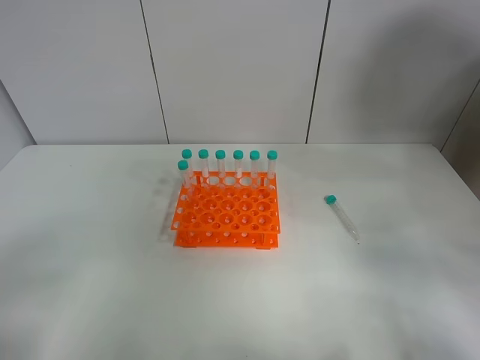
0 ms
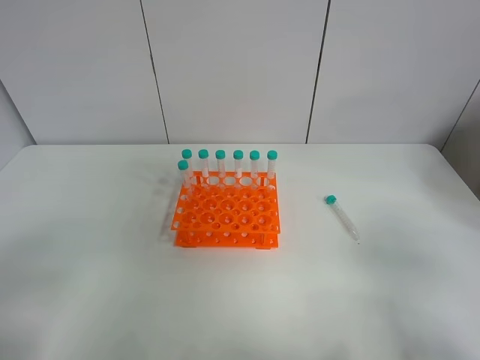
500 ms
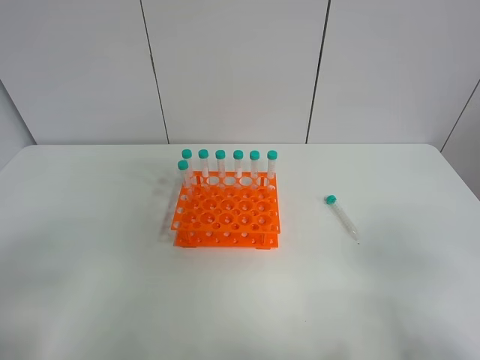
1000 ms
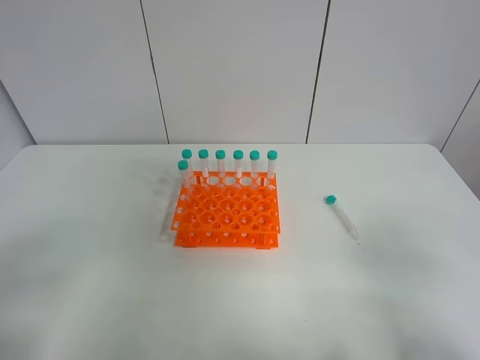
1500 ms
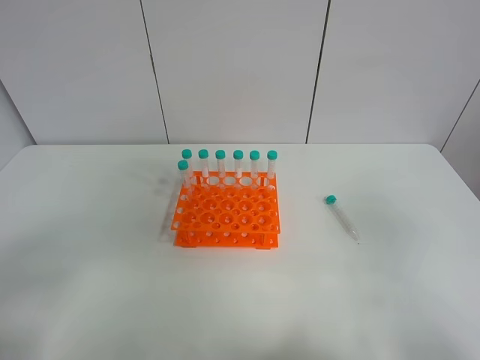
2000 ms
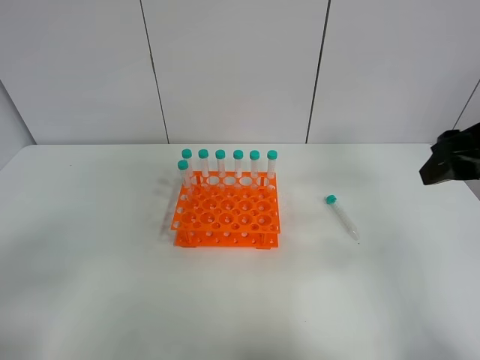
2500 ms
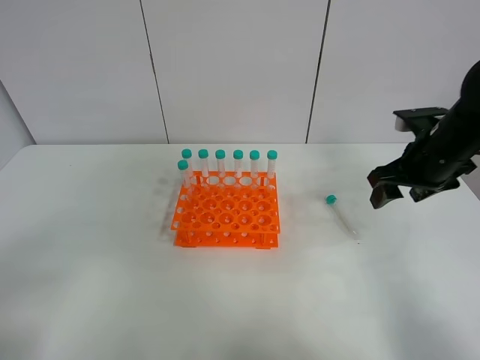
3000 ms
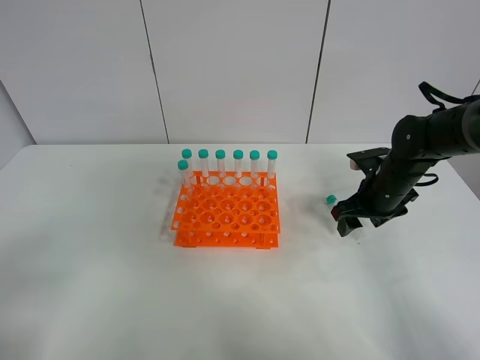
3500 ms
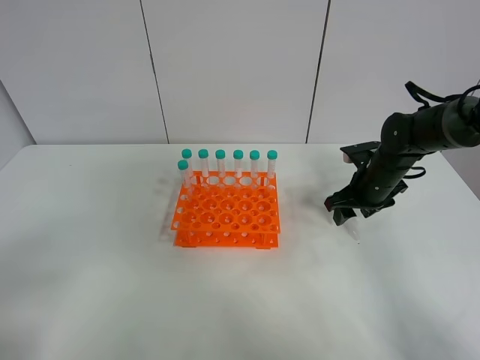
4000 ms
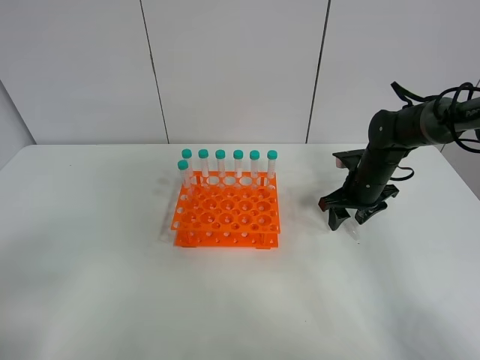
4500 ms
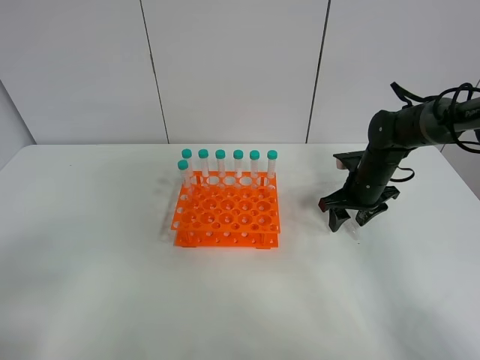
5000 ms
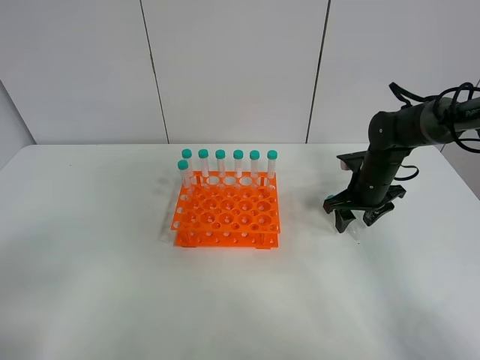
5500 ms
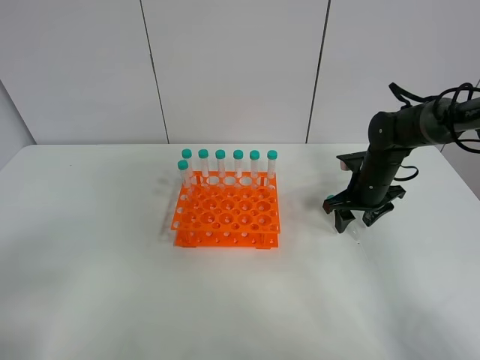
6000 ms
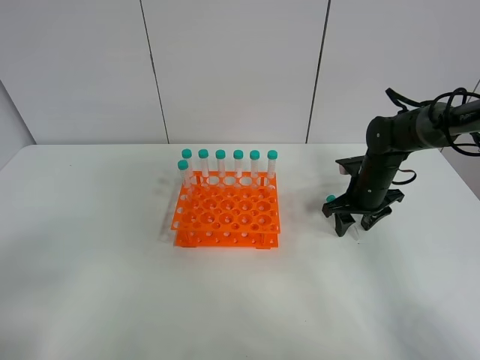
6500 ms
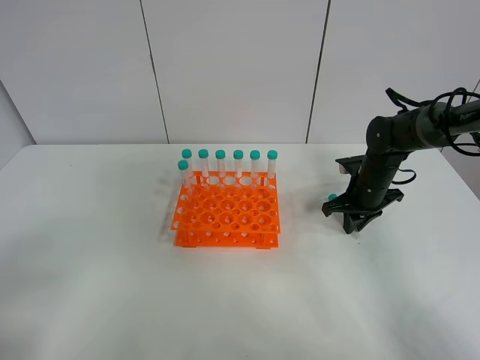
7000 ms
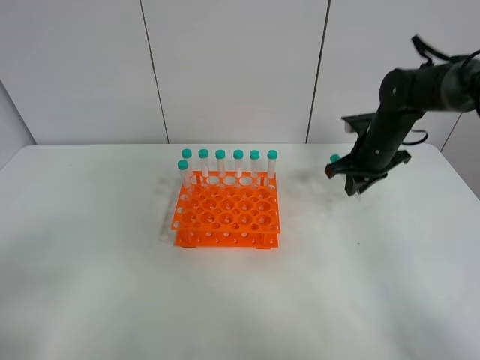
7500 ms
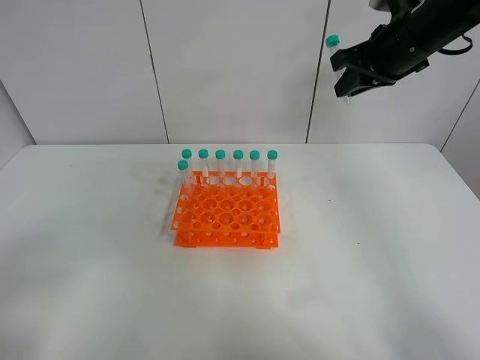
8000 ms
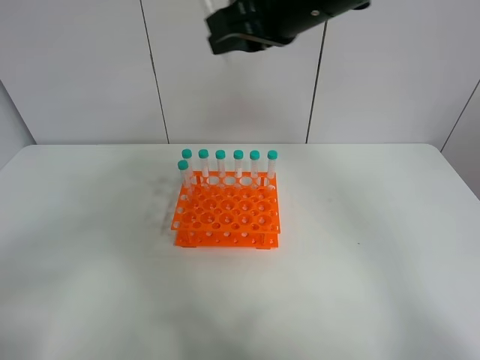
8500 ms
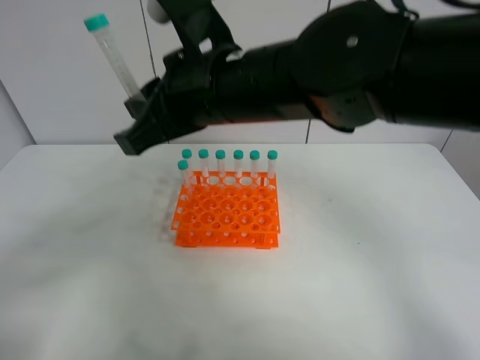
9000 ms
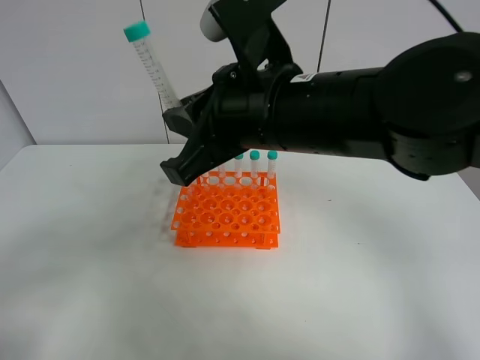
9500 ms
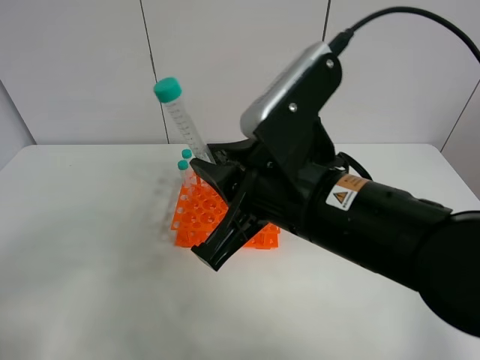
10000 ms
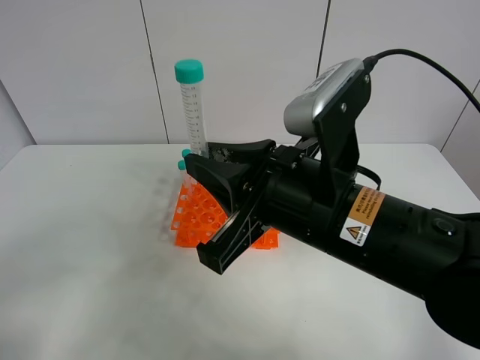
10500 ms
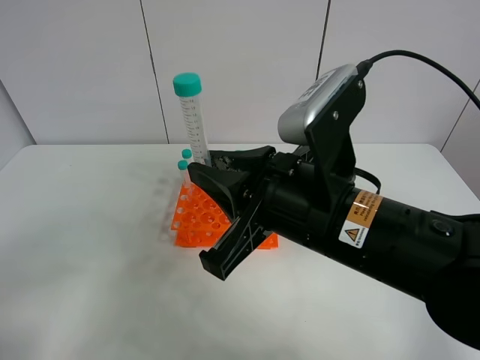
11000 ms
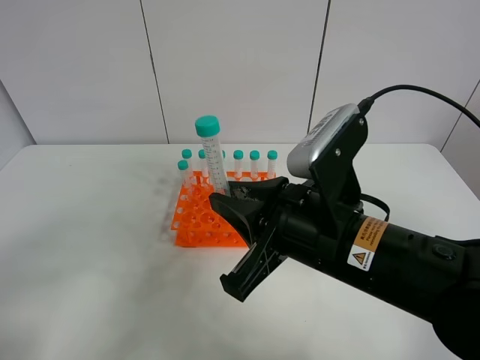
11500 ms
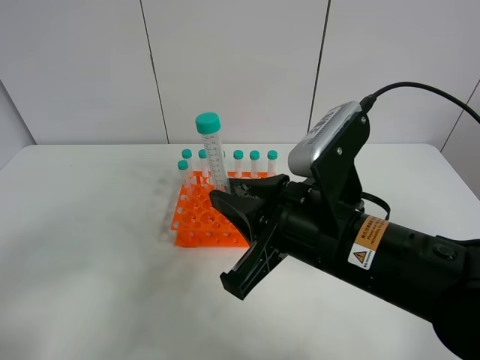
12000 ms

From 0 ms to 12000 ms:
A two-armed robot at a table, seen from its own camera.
Task of the whole recording: Put the test tube on the table back onto the test tube rack.
Step, from 0 ms to 7500 ms: Pick up the test tube with the right gripper.
From 0 ms to 2000 ms: The right gripper goes about 10 cm upward.
From 2000 ms to 4000 ms: The right gripper travels forward and downward by approximately 40 cm.
From 4000 ms to 6000 ms: There are only small adjustments of the grippers.
From 6000 ms to 8000 ms: The right gripper travels upward by approximately 25 cm, and closes.
From 8000 ms to 10000 ms: The right gripper moves backward and to the left, some 25 cm.
From 10000 ms to 12000 ms: There are only small adjustments of the grippers.

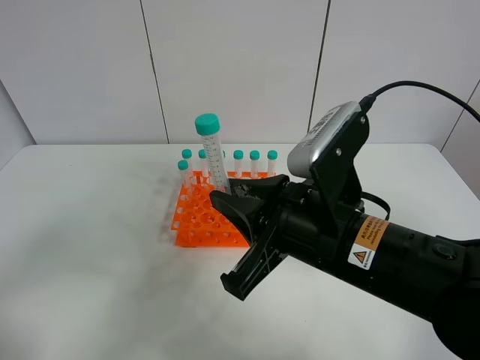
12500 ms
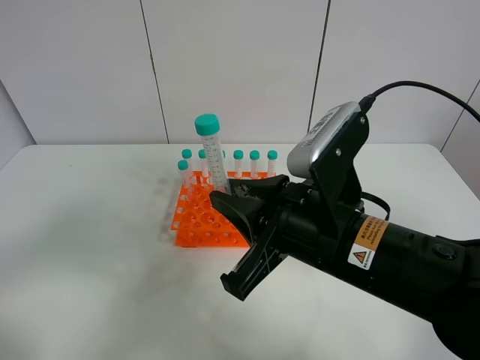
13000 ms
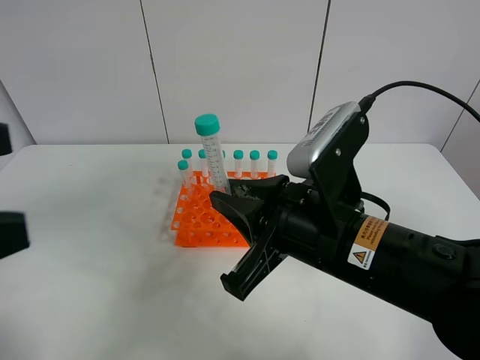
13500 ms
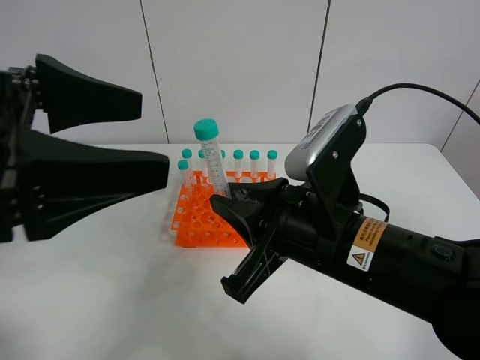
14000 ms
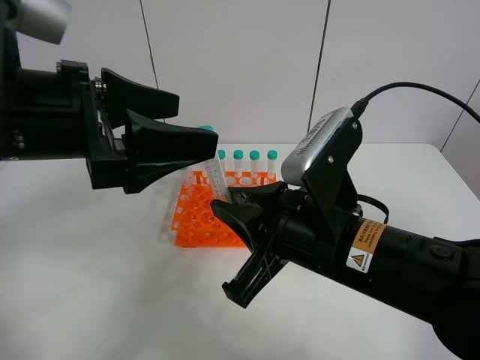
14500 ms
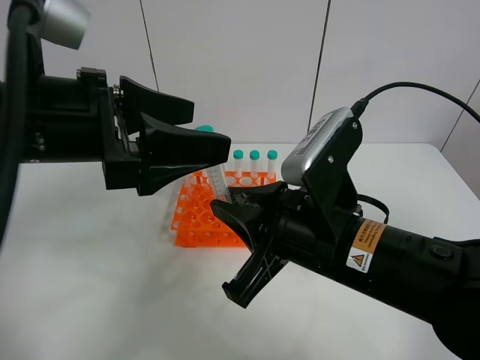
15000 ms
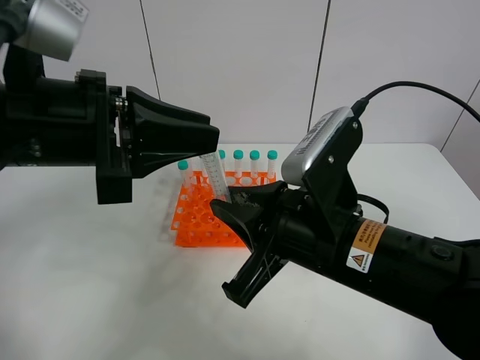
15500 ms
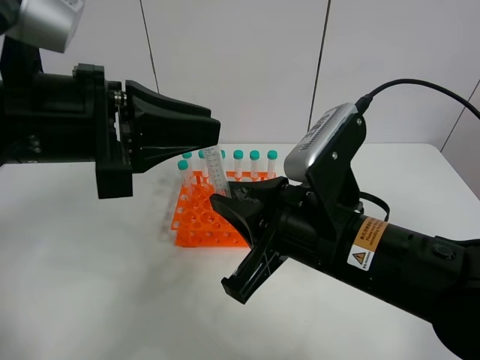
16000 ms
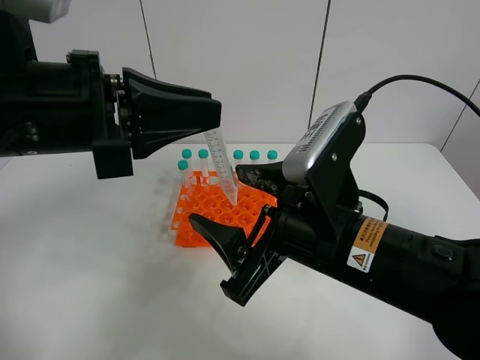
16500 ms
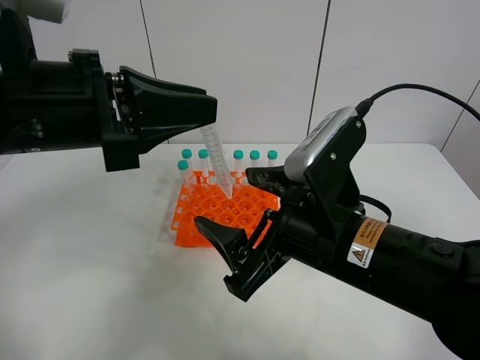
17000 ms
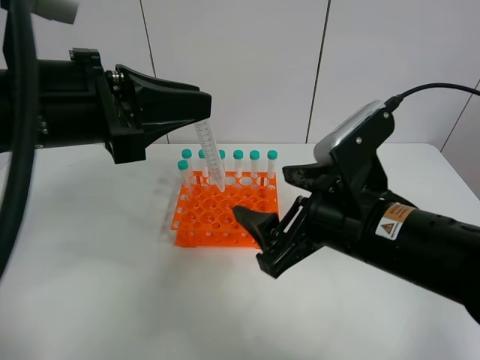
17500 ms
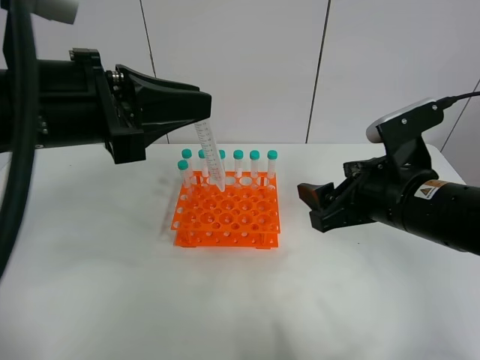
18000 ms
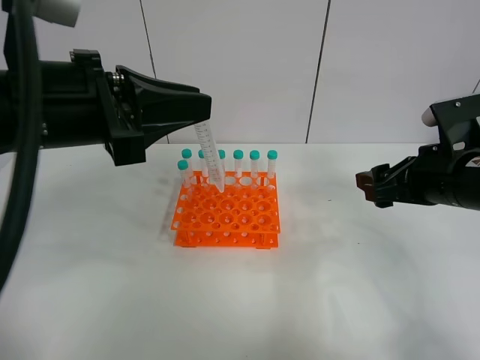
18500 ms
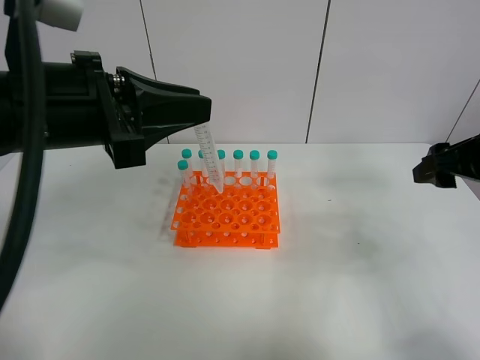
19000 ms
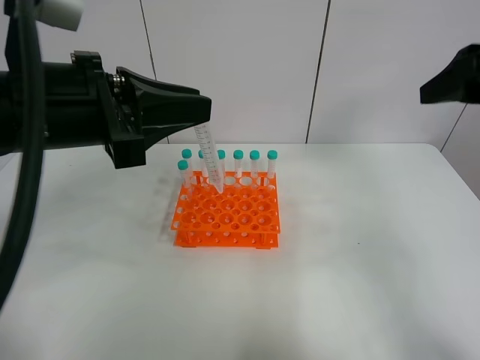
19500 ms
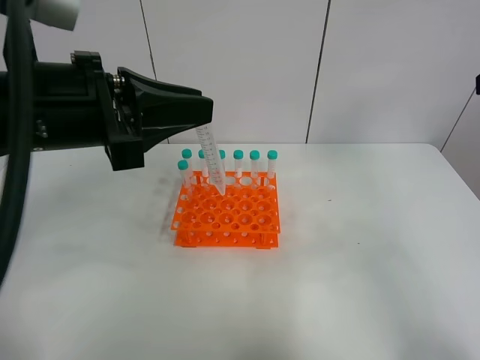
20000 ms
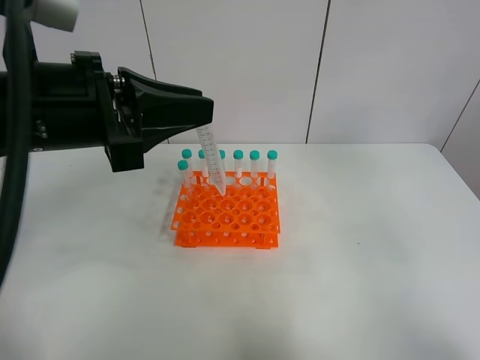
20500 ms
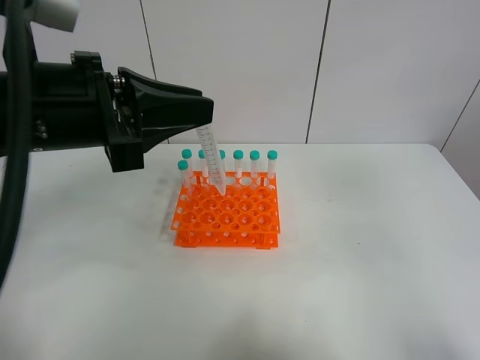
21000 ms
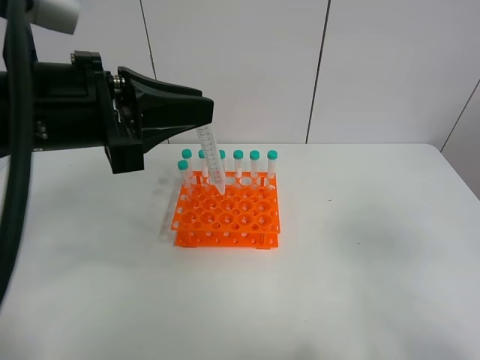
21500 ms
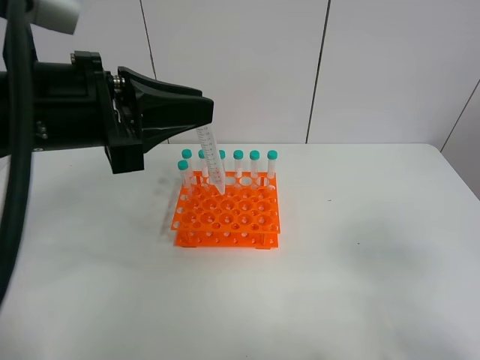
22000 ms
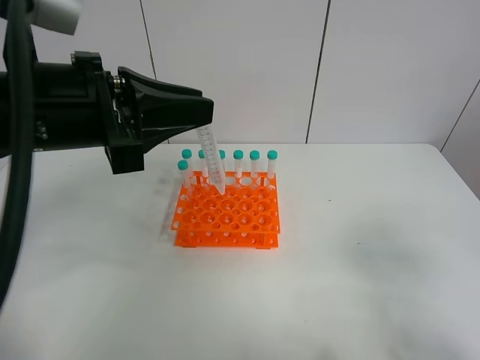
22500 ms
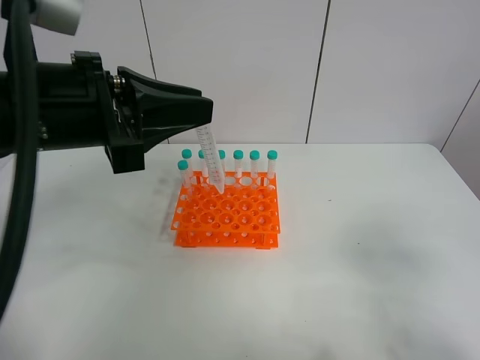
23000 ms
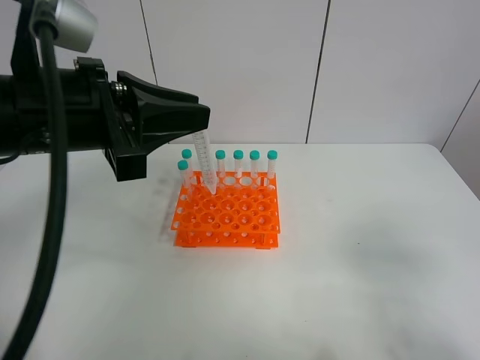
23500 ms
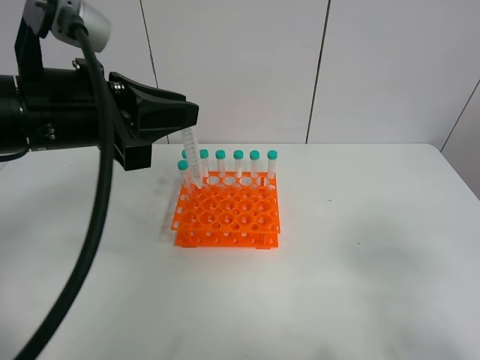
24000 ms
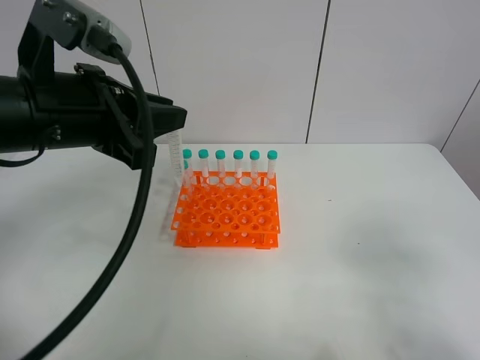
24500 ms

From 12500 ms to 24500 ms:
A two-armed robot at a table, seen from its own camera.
Task of the whole recording: Put the test tube on the table back onto the test tube rack.
Step, from 12500 ms to 17000 ms: Move the test tube from the right gripper to the left gripper.
From 12500 ms to 14500 ms: The left gripper travels forward and to the right by some 25 cm.
From 14500 ms to 16500 ms: The right gripper opens; the left gripper closes its fingers.
From 16500 ms to 18500 ms: The right gripper is displaced to the right and forward by about 20 cm.
From 18500 ms to 20500 ms: The right gripper heads upward and backward, covering roughly 25 cm.
From 20500 ms to 22500 ms: The right gripper is displaced downward and backward by approximately 20 cm.

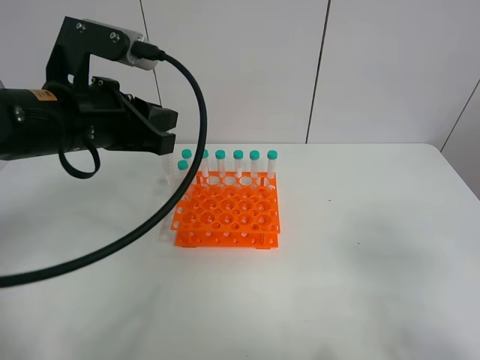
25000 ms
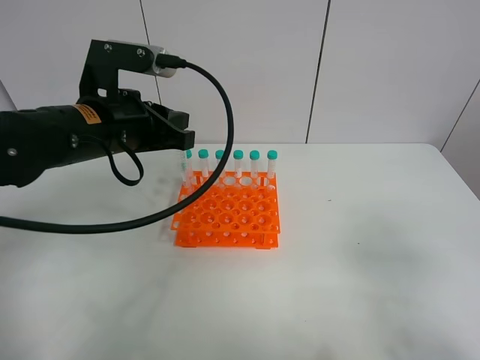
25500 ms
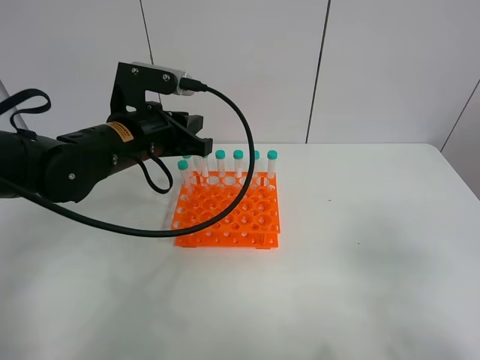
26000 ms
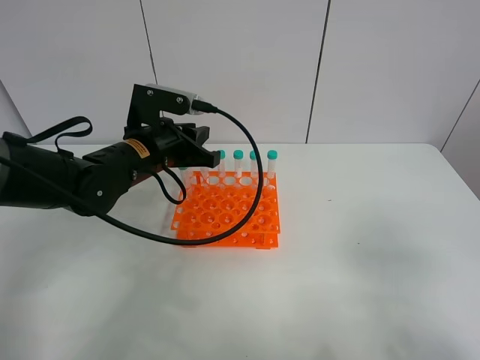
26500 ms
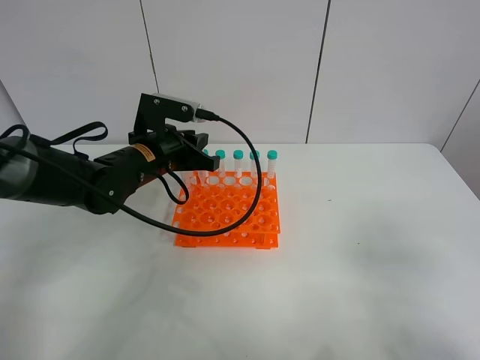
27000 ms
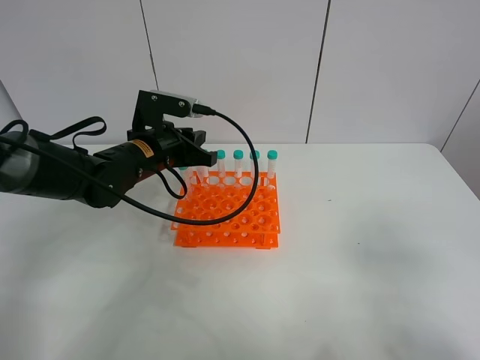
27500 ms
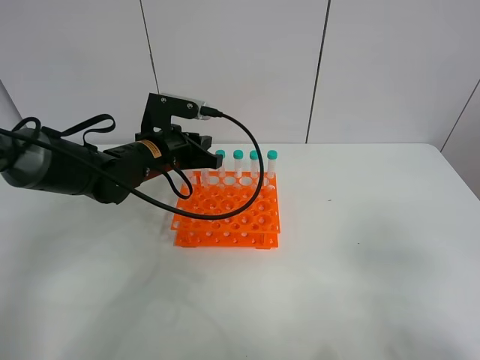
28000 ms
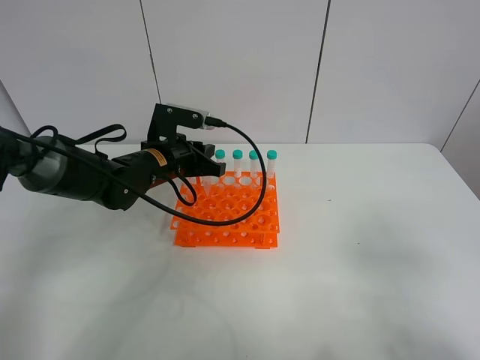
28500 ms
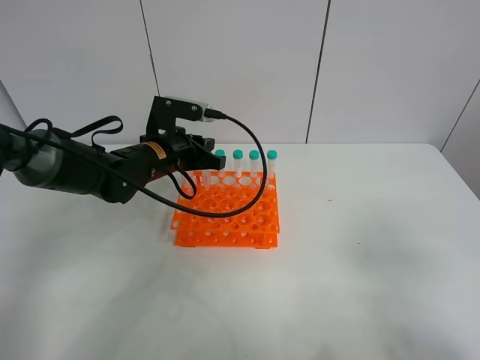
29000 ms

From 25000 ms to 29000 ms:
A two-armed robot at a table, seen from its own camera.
Task of the whole recording: Put the test tube on the table back onto the test tube rack.
From 25000 ms to 27000 ms: The left gripper is displaced downward and forward by approximately 15 cm.
From 27000 ms to 29000 ms: The grippers stay close to where they were, moving slightly.
